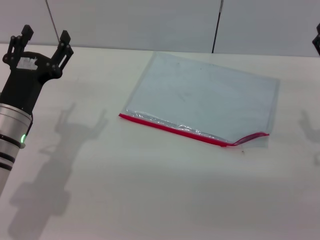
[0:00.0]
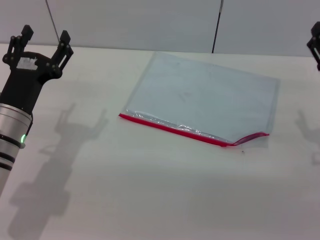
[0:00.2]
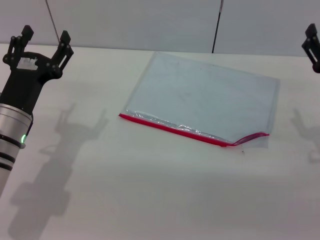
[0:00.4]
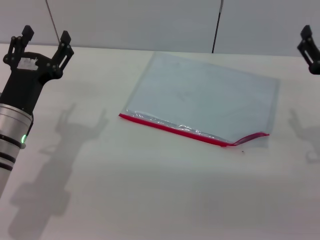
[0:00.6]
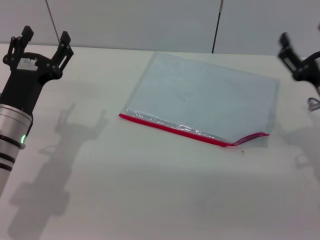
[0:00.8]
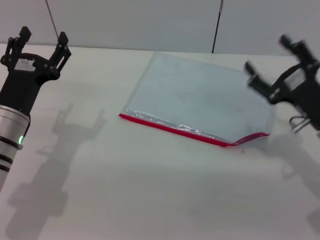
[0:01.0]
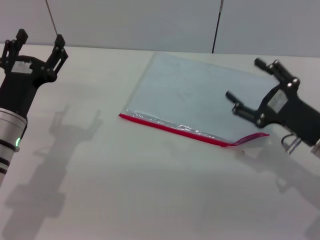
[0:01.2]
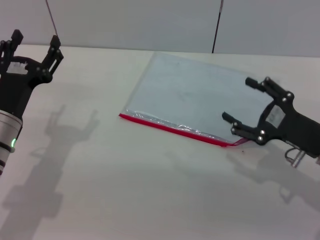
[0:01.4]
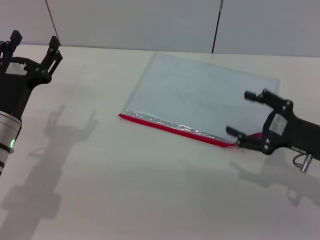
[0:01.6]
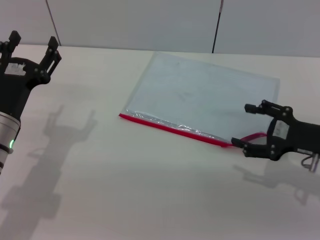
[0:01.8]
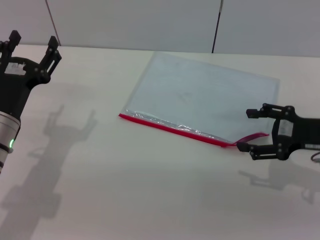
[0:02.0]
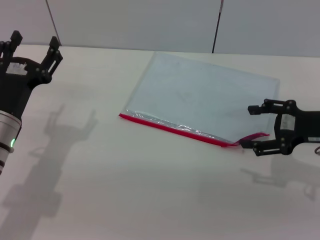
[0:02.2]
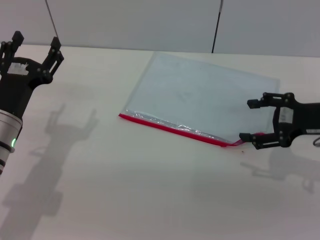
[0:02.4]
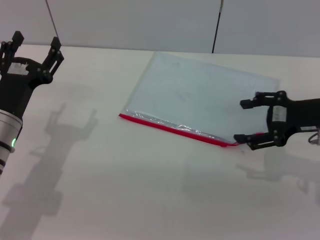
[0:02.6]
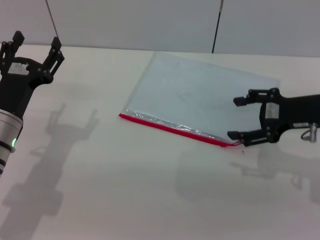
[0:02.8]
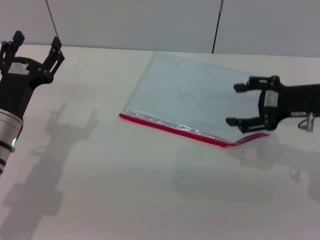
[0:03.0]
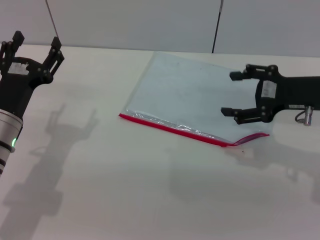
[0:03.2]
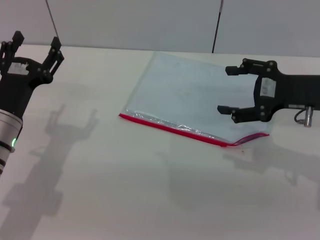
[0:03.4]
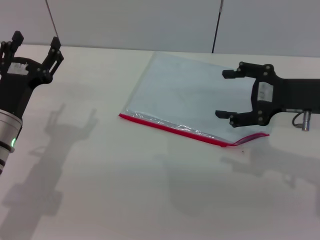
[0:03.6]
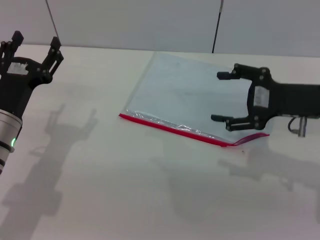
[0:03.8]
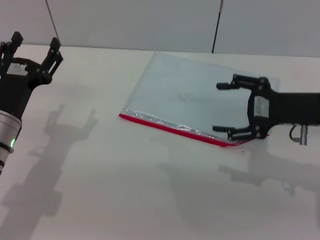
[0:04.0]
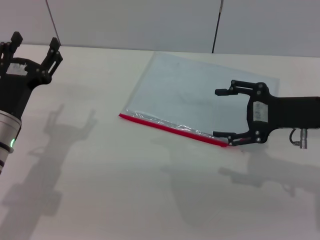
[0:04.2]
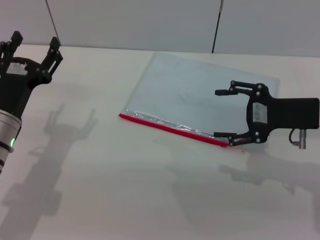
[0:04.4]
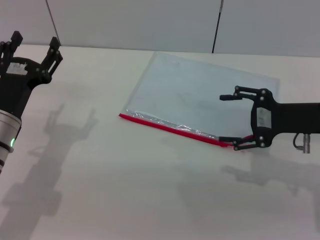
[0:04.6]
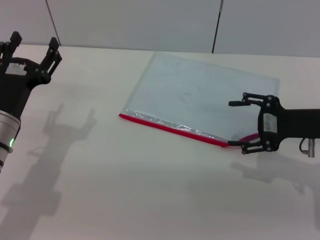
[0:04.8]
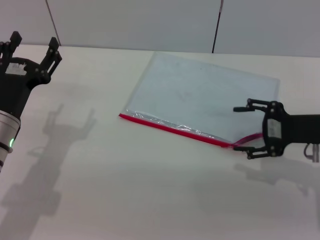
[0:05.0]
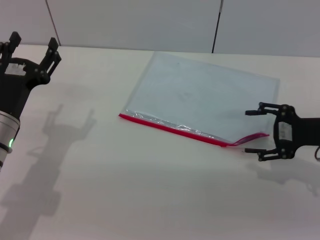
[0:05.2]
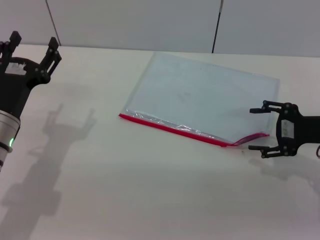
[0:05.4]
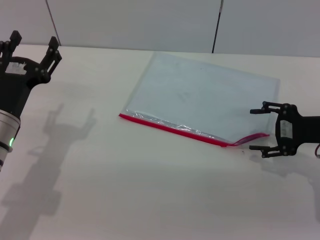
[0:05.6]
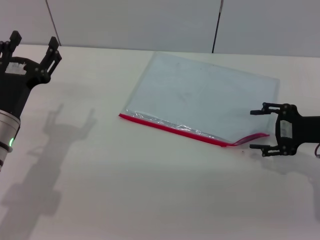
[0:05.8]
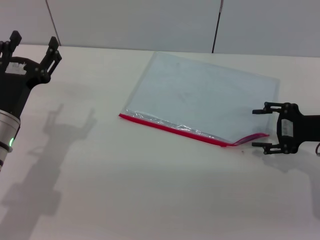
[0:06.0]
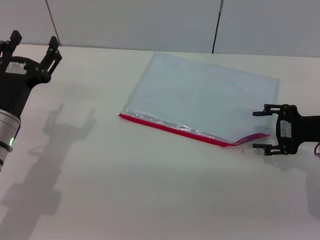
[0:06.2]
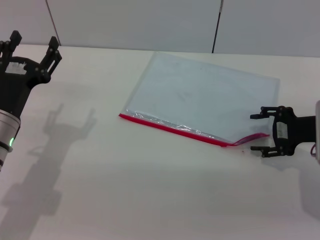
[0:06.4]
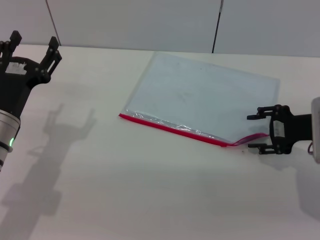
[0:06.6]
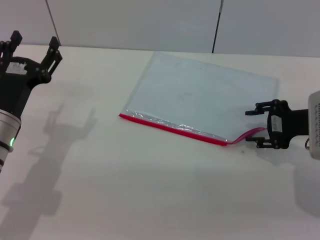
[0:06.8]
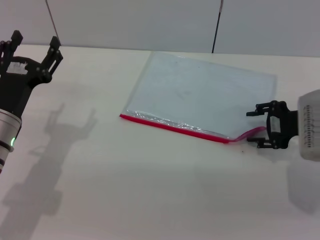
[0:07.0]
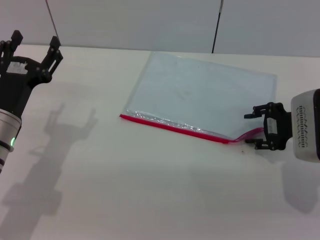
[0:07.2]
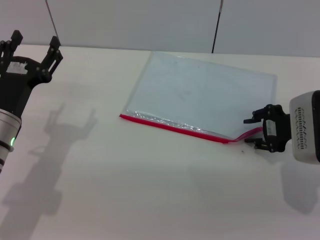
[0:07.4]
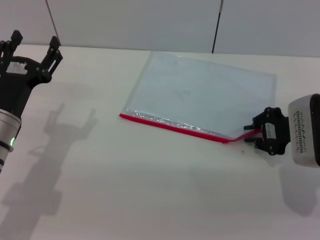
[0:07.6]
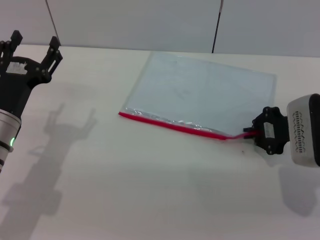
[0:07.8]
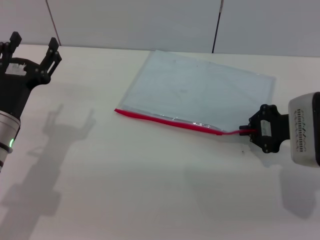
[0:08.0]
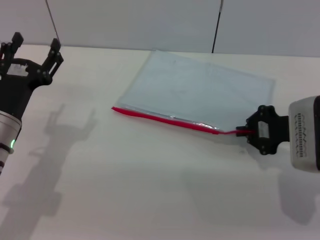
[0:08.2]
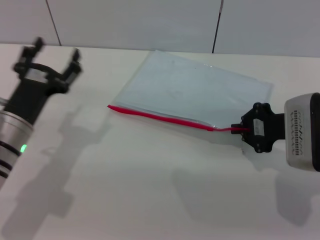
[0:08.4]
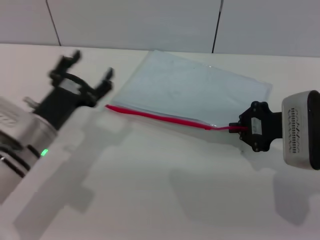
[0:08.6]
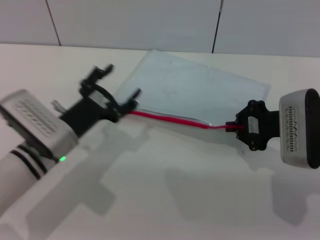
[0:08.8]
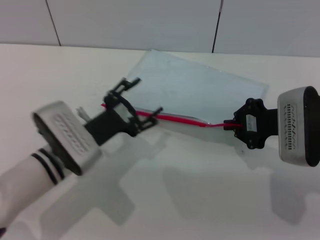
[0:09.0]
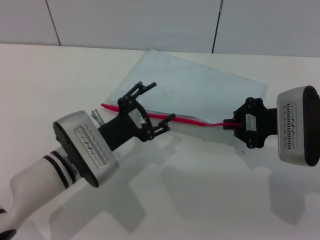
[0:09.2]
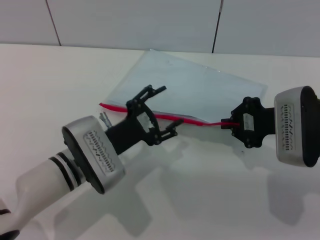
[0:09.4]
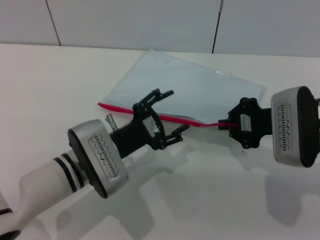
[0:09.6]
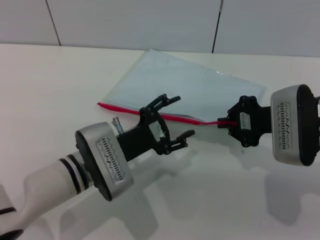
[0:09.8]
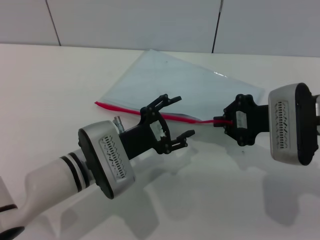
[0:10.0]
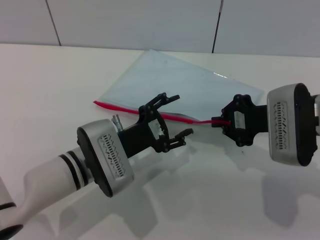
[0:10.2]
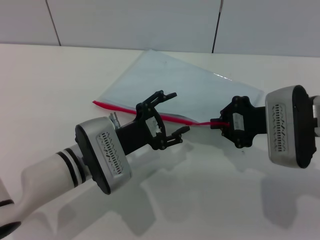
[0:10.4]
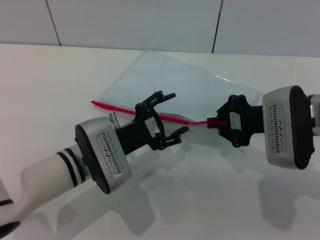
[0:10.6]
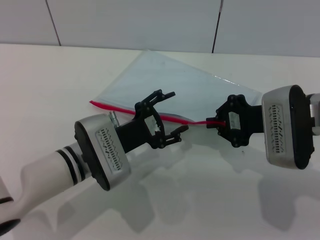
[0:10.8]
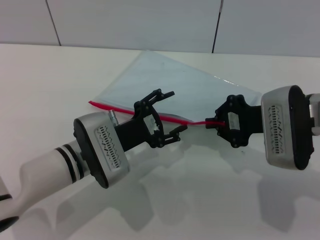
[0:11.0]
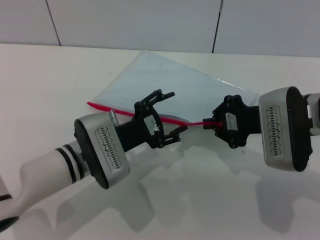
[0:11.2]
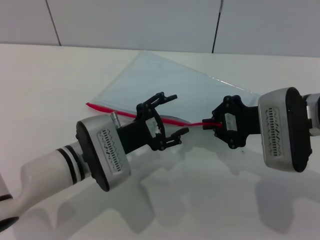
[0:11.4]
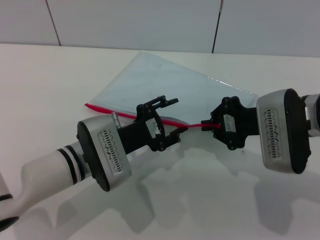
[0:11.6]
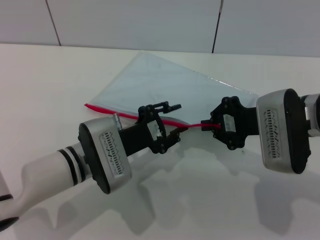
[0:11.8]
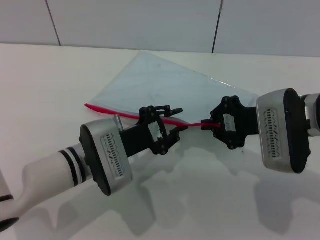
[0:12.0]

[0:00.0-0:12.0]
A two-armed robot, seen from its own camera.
Step, 0:00.0 to 0:08.6: Pick up the transparent plastic bag with the right gripper.
0:01.6 to 0:03.0: The right gripper heads upward and forward, covering approximately 10 cm.
0:04.4 to 0:06.0: The right gripper moves some 5 cm.
0:06.0 to 0:07.6: The right gripper closes.
0:07.6 to 0:09.0: The right gripper closes; the left gripper goes approximately 10 cm to the right.
0:10.4 to 0:12.0: The left gripper closes its fingers.

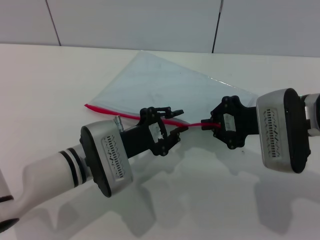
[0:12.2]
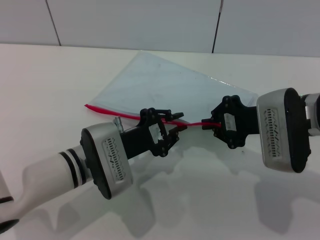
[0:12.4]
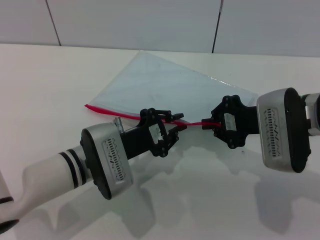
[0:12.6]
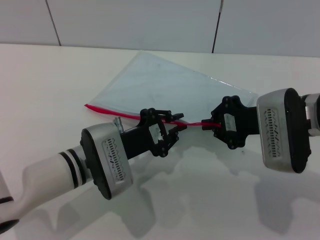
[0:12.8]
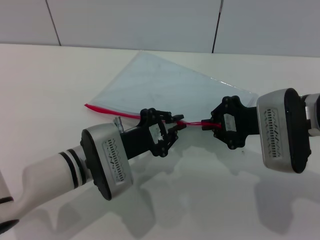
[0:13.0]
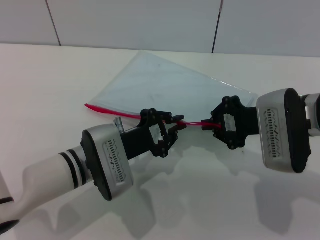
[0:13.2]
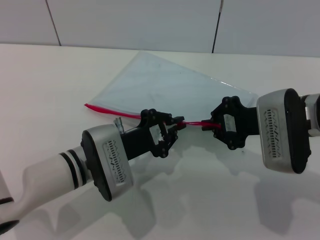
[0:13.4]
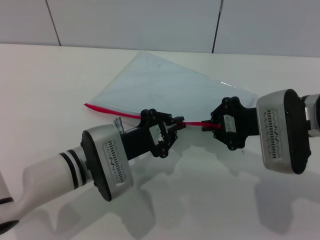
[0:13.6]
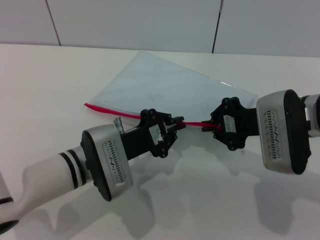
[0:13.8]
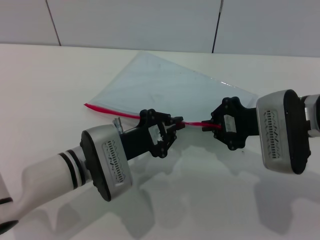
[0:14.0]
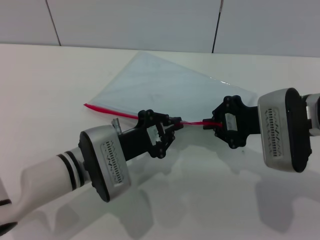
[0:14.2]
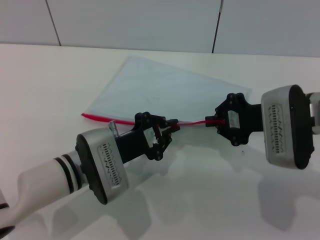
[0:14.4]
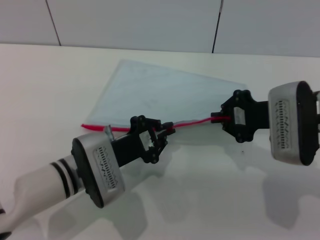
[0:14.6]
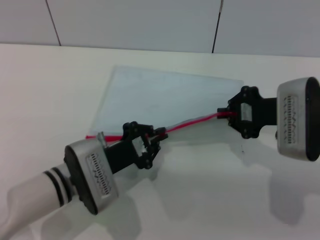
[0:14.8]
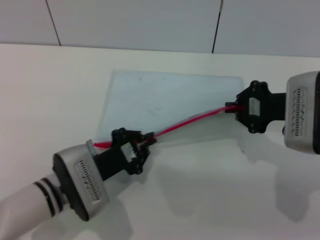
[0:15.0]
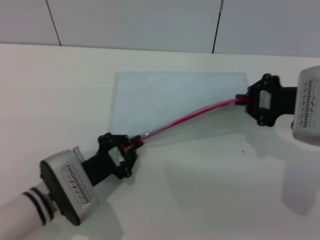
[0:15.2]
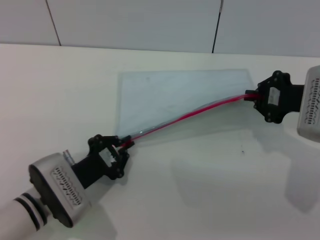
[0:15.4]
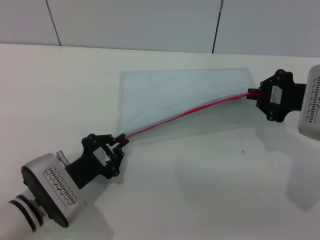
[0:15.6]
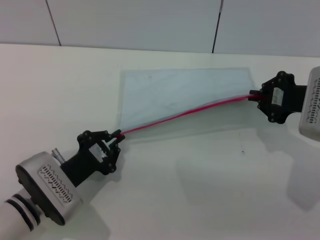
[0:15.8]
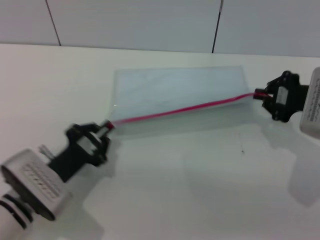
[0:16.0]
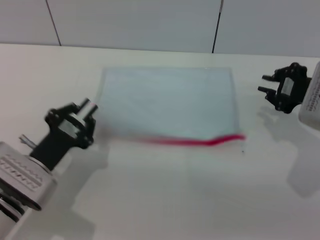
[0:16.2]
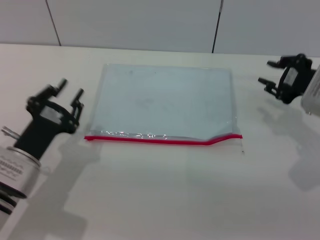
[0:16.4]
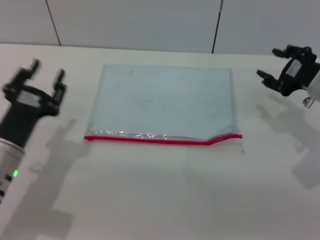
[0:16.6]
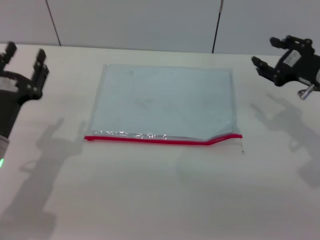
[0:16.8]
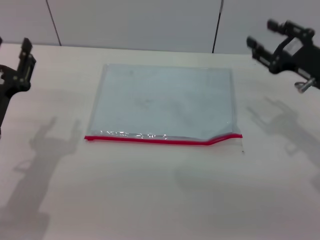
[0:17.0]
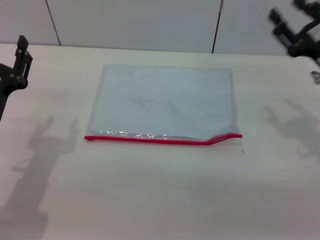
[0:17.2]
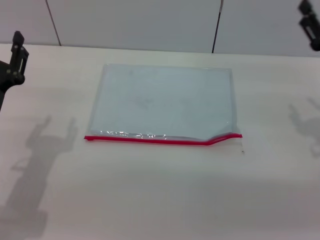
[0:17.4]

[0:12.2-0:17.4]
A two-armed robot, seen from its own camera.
Step, 0:12.2 to 0:16.4: Pulling up the zipper on the transparent plastic bag with the left gripper to close it.
Step, 0:16.6 to 0:17.0: Place the transparent plastic bag.
0:12.2 to 0:14.0: The left gripper closes its fingers.
0:14.0 to 0:15.6: The left gripper moves to the left and backward, roughly 10 cm. Meanwhile the right gripper shifts approximately 5 cm to the right.
0:15.6 to 0:17.4: The right gripper opens its fingers. Meanwhile the left gripper shifts some 10 cm upward and to the left, and opens.

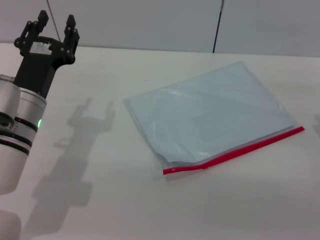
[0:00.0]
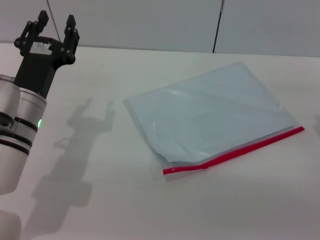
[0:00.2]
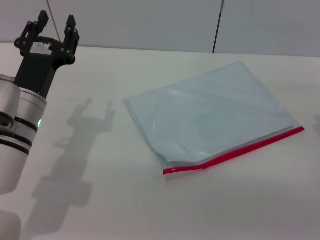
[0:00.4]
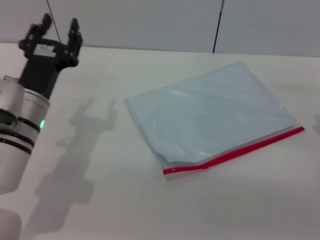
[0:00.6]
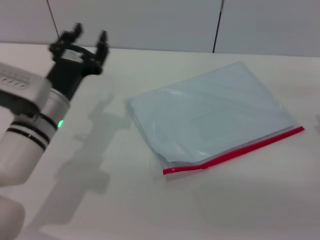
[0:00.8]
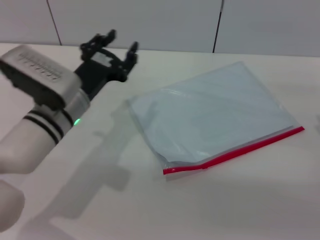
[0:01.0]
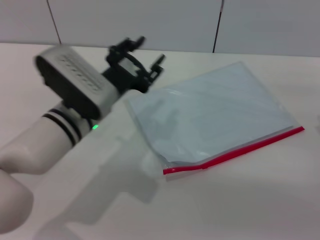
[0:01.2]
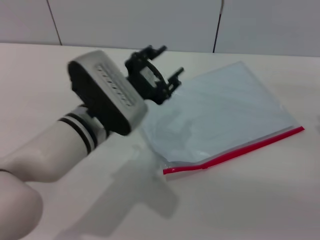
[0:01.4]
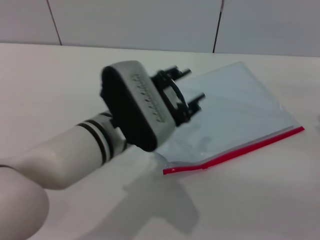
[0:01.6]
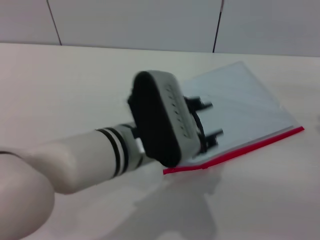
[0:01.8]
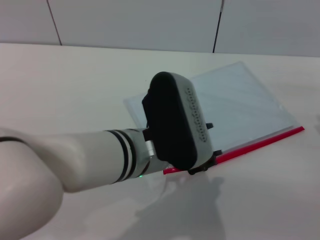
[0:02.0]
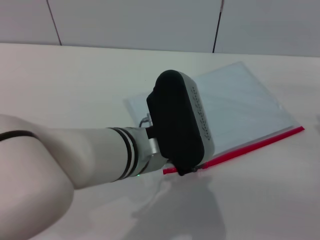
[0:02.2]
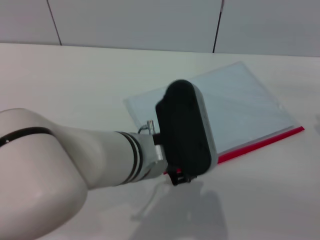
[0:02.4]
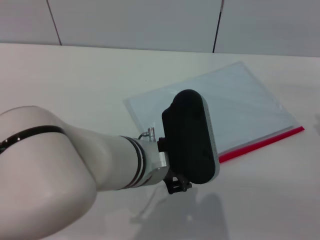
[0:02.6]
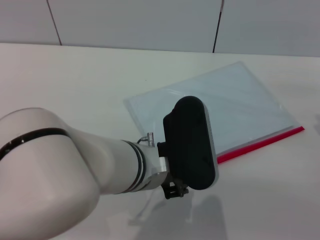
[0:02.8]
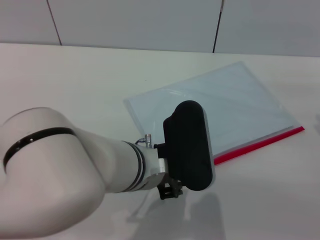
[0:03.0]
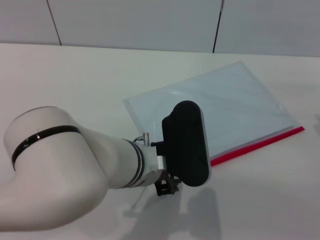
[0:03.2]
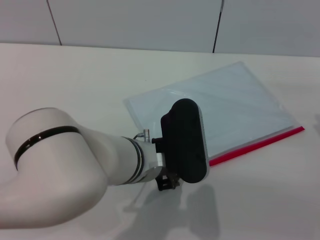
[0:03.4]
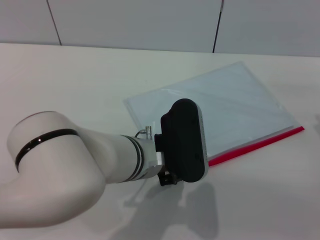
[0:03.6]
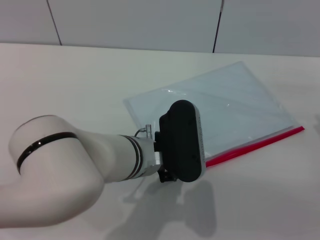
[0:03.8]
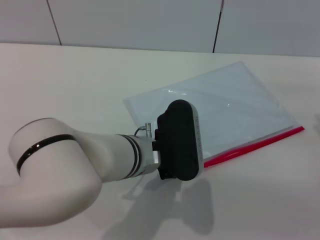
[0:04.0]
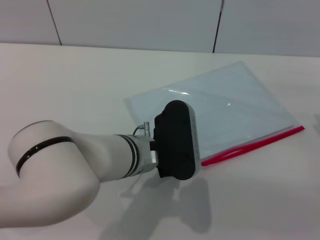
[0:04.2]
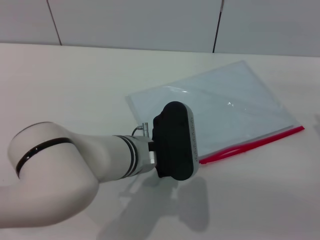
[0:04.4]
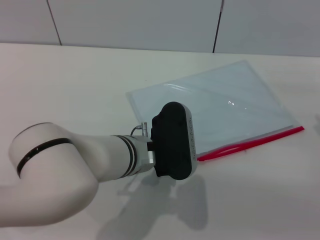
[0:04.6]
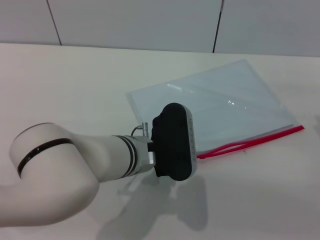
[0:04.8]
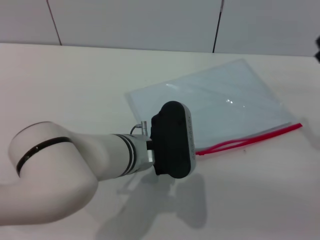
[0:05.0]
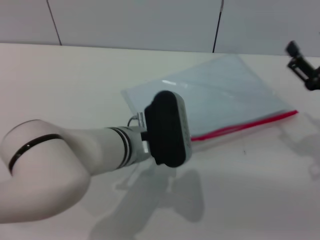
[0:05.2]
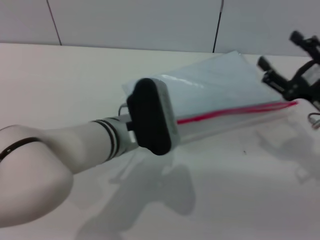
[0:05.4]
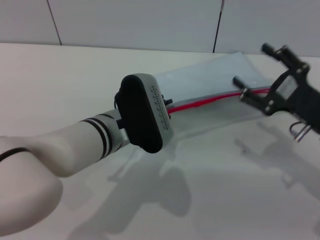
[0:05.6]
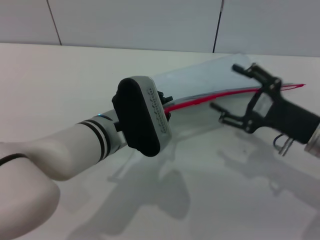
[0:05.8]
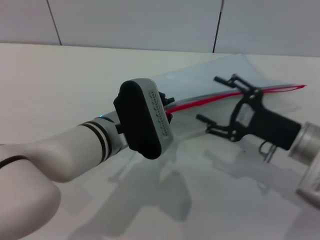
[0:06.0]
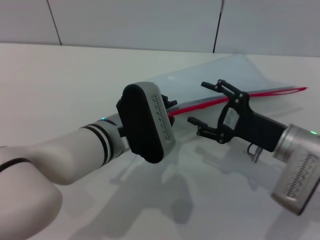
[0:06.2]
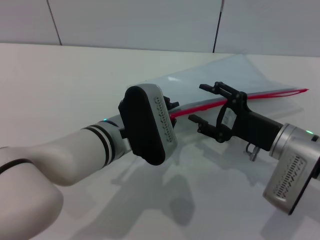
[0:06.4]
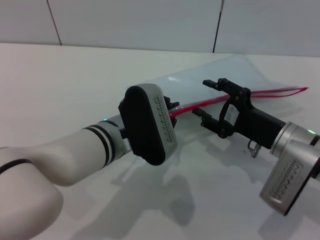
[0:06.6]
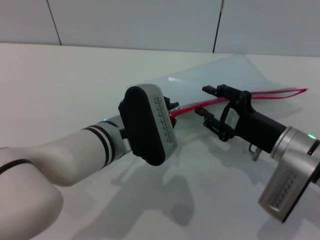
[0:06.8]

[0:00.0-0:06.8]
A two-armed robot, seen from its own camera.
Step, 0:00.0 to 0:05.6: Pick up the transparent plastic bag with the left gripper.
0:00.0 to 0:01.4: The left gripper moves to the right, some 10 cm.
0:01.4 to 0:02.8: The left gripper goes roughly 10 cm to the right and backward.
0:02.8 to 0:04.0: The left gripper moves some 5 cm.
0:04.0 to 0:05.4: The left gripper closes.
0:05.4 to 0:06.8: The right gripper travels to the left by roughly 10 cm.
